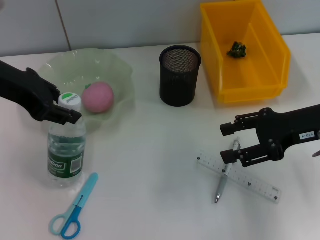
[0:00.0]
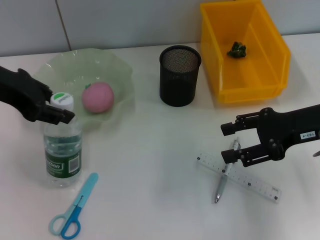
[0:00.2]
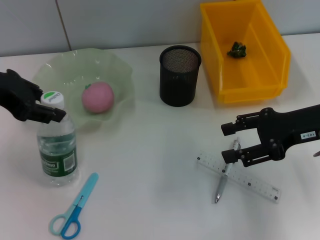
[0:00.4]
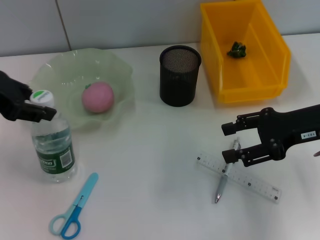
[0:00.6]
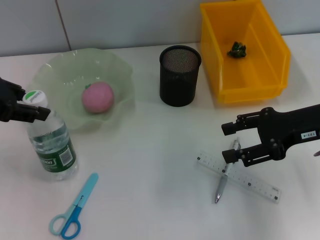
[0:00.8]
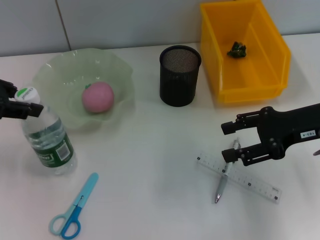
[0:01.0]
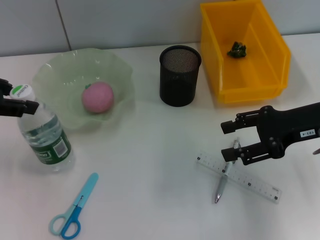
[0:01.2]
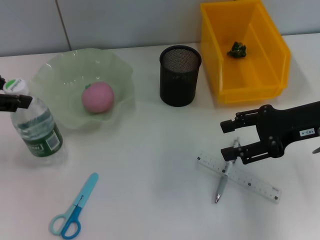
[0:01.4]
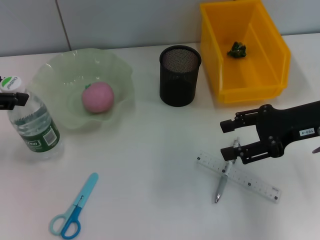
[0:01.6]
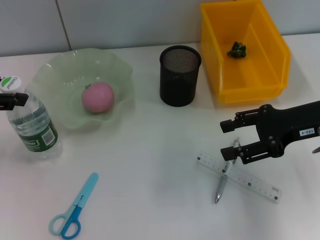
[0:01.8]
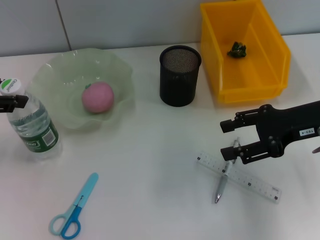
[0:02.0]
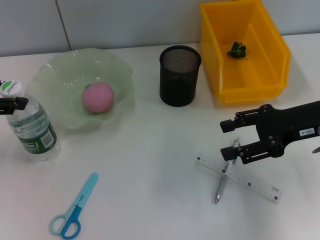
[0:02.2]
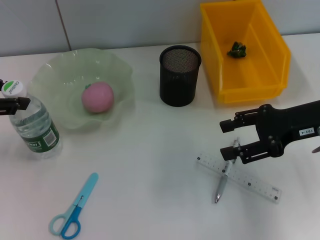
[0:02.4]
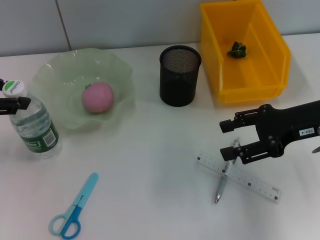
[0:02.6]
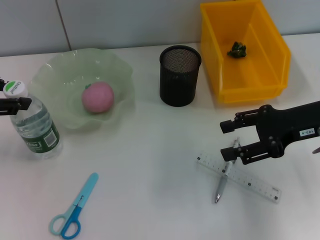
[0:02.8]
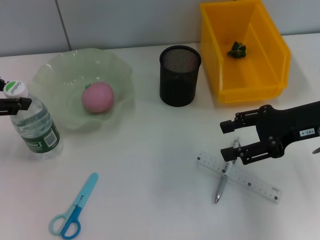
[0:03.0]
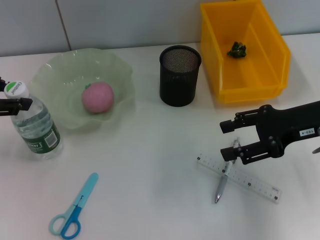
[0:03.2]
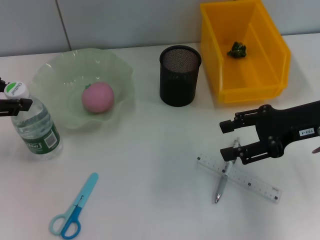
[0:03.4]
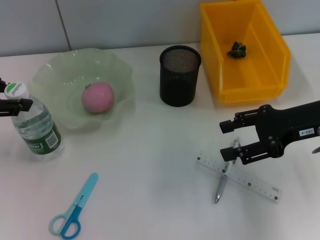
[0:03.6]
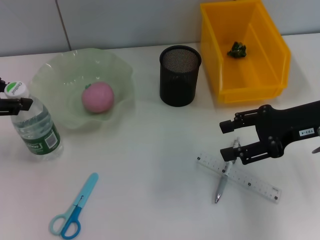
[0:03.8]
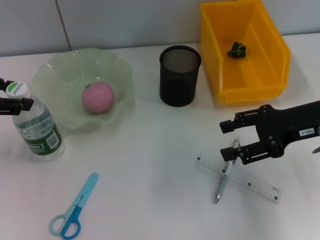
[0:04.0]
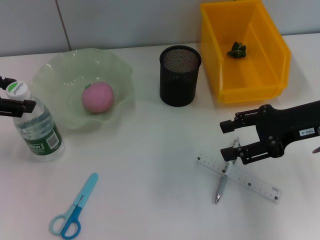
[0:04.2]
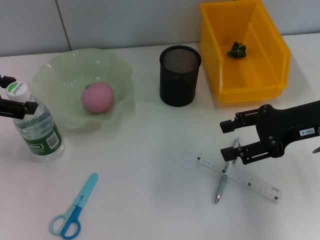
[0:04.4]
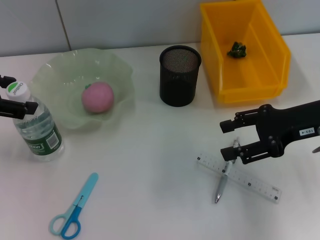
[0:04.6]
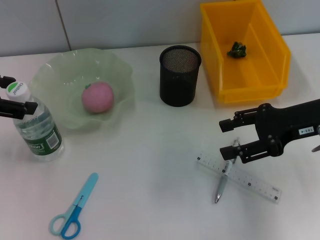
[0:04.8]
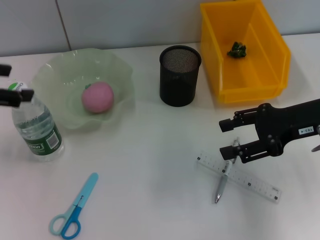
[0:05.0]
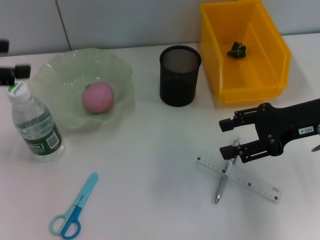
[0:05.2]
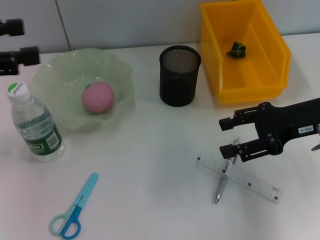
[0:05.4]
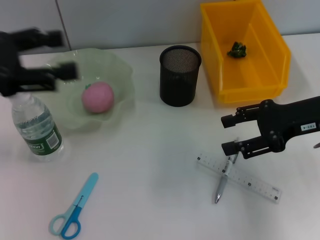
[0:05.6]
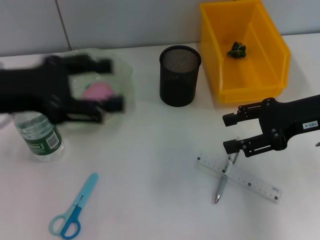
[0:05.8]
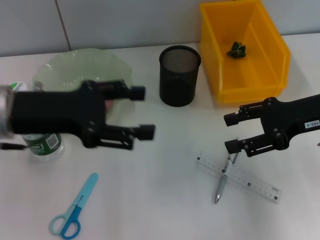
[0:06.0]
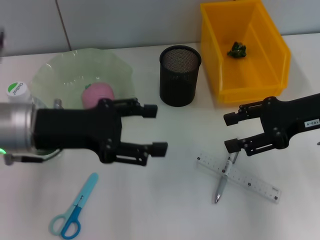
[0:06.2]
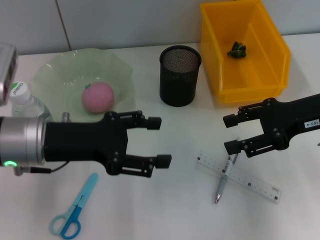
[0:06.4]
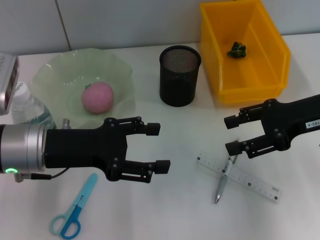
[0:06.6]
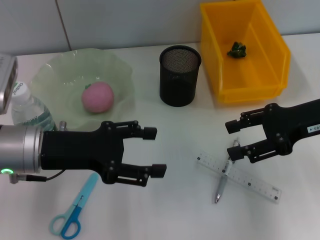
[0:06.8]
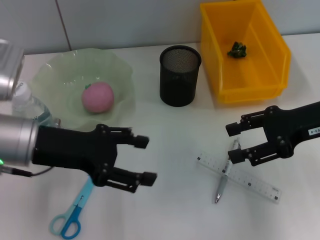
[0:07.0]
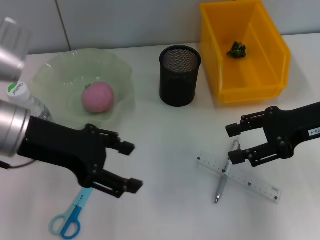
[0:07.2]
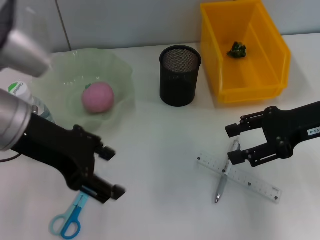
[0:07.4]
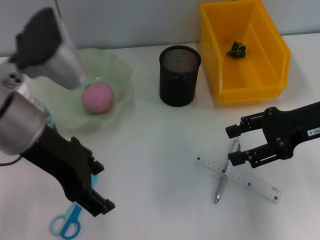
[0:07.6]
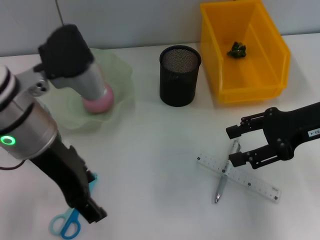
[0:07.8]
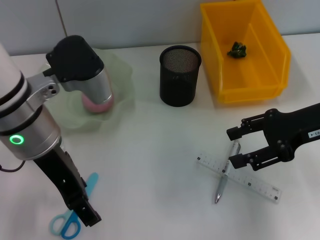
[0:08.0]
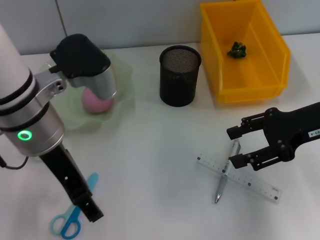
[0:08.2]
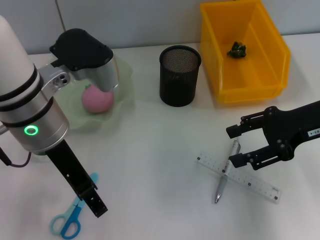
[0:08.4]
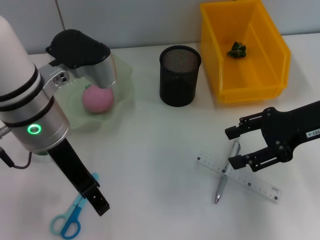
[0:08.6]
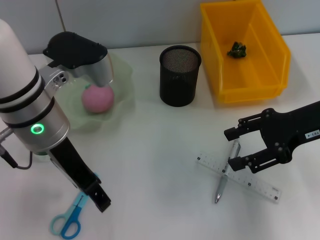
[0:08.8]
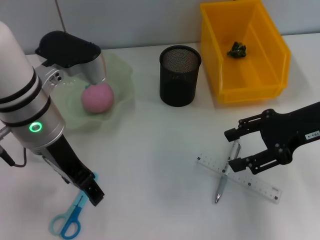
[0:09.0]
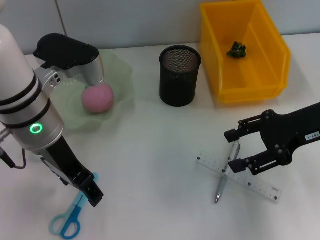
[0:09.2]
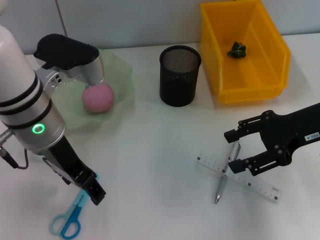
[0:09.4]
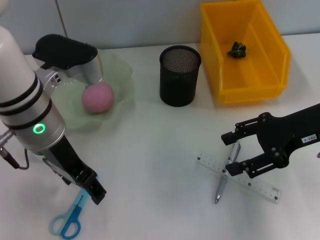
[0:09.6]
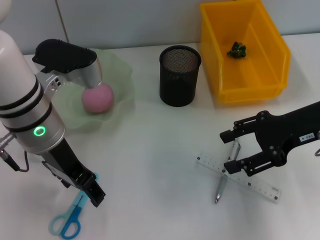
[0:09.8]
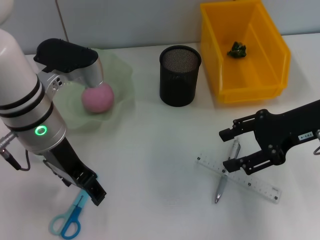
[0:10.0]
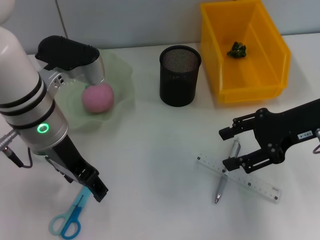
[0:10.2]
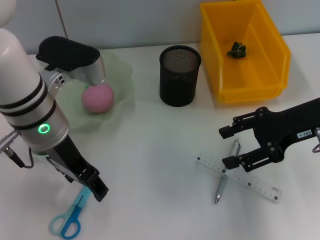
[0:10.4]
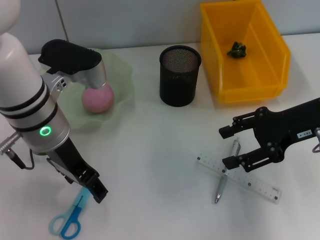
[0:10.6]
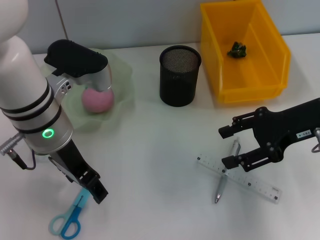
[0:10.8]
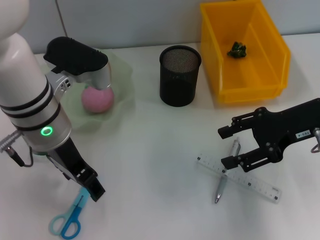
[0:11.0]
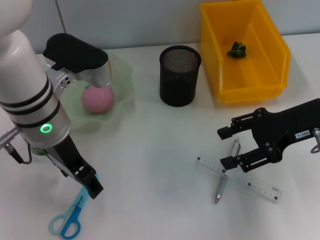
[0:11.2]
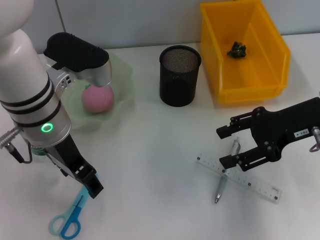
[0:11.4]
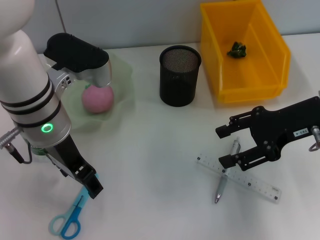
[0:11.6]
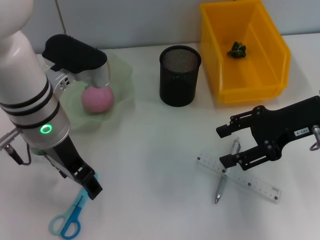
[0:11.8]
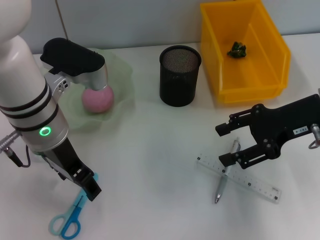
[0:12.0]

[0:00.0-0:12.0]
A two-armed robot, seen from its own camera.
Step, 0:00.0 to 0:04.4: Place the water bottle on the table with the left hand.
0:00.0 to 0:01.6: The left gripper goes about 10 cm to the left.
0:01.6 to 0:03.0: There are only small adjustments of the grippers.
0:03.0 to 0:04.4: The left gripper opens its fingers.
0:04.4 to 0:06.0: The left gripper moves to the right, roughly 10 cm.
0:06.0 to 0:07.6: The left gripper moves to the right, approximately 5 cm.
0:07.6 to 0:09.0: The left gripper moves about 5 cm.
0:09.0 to 0:12.0: There are only small adjustments of the grippers.

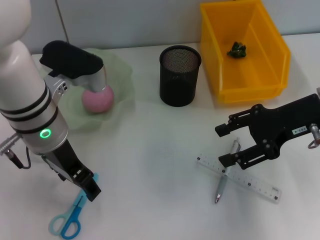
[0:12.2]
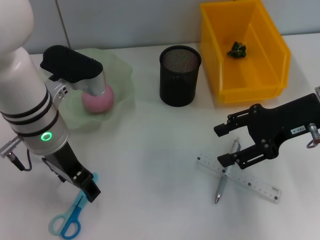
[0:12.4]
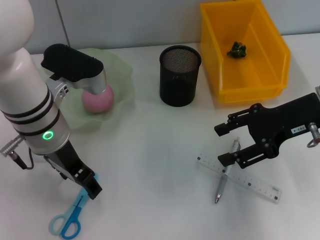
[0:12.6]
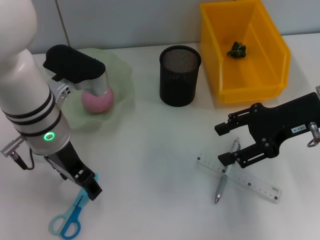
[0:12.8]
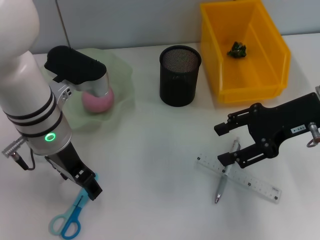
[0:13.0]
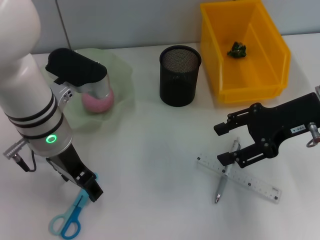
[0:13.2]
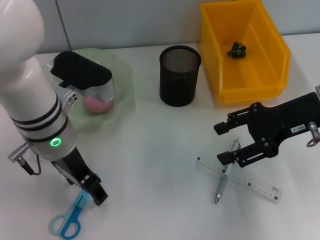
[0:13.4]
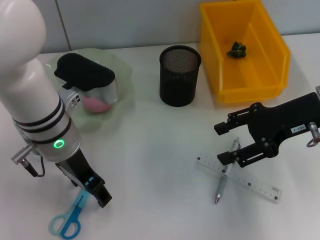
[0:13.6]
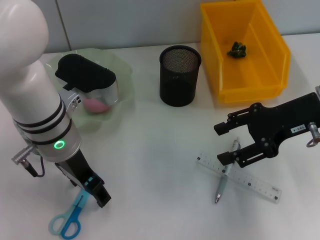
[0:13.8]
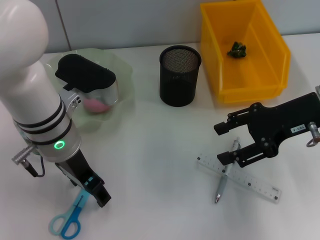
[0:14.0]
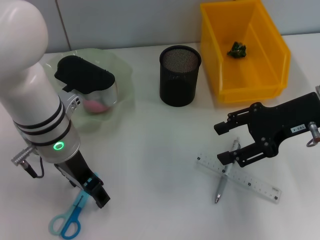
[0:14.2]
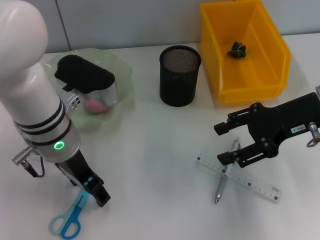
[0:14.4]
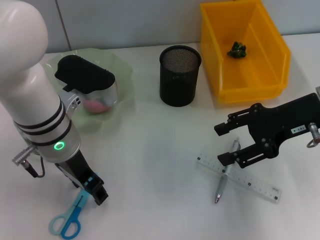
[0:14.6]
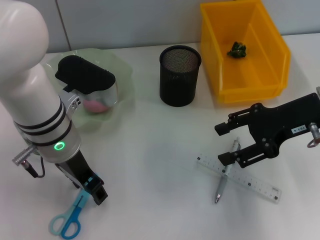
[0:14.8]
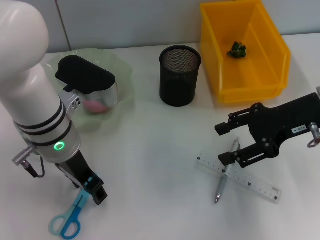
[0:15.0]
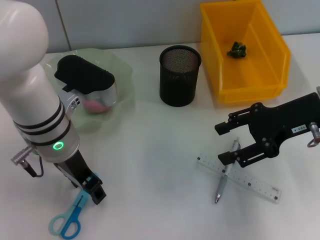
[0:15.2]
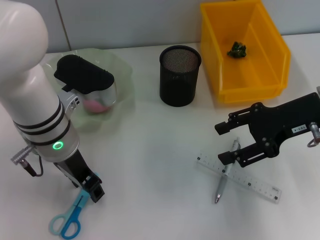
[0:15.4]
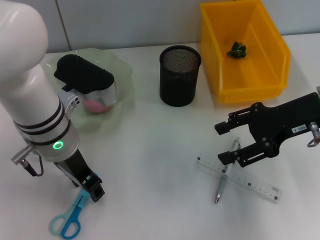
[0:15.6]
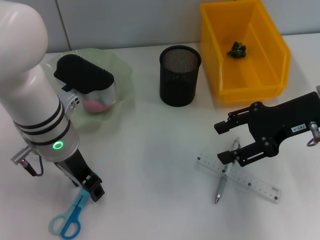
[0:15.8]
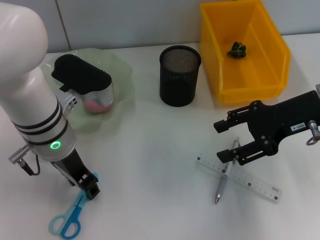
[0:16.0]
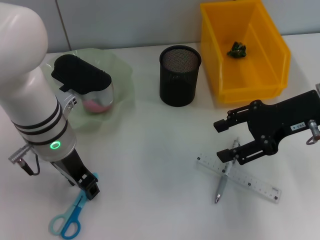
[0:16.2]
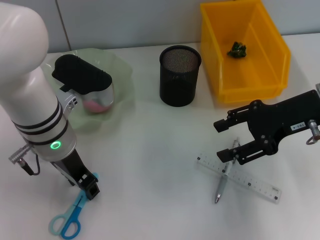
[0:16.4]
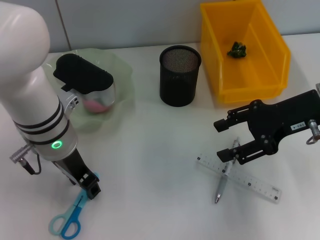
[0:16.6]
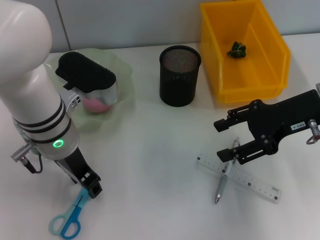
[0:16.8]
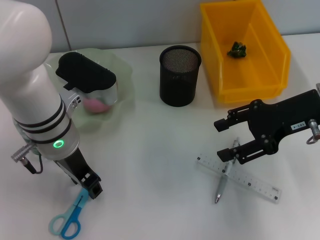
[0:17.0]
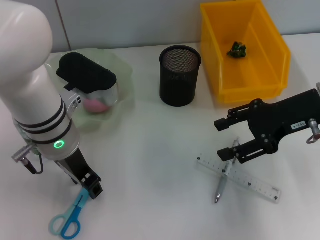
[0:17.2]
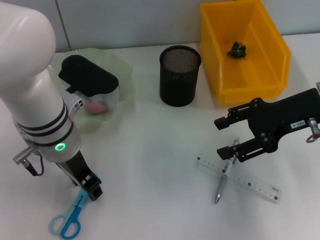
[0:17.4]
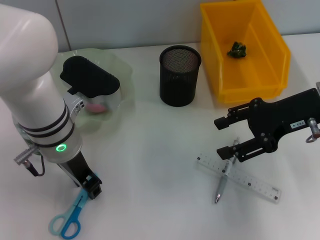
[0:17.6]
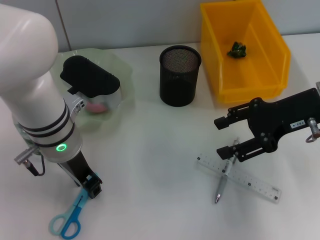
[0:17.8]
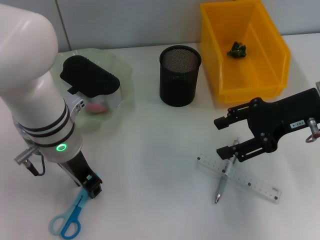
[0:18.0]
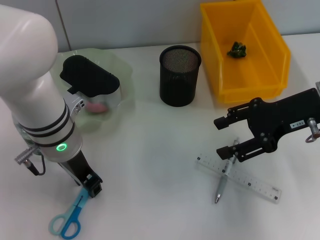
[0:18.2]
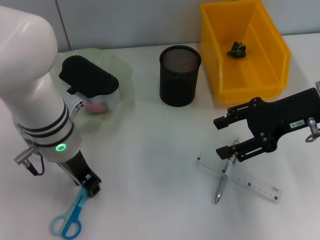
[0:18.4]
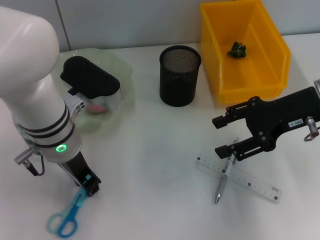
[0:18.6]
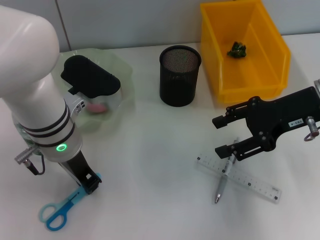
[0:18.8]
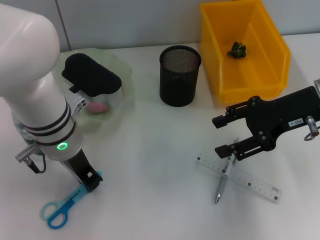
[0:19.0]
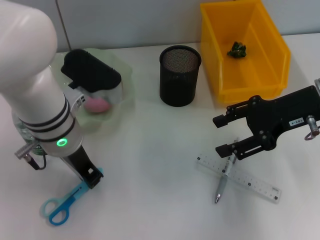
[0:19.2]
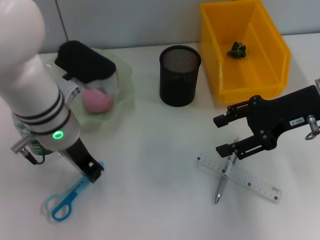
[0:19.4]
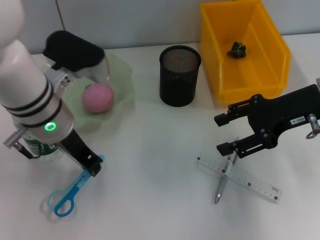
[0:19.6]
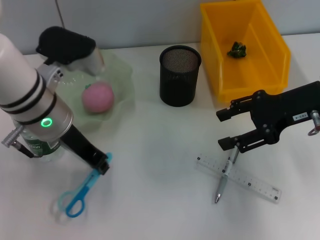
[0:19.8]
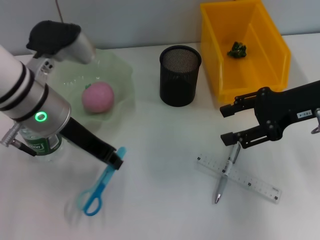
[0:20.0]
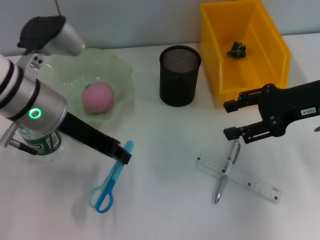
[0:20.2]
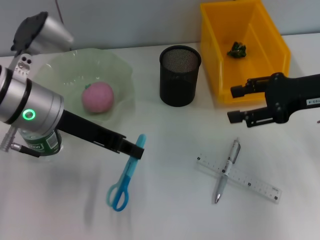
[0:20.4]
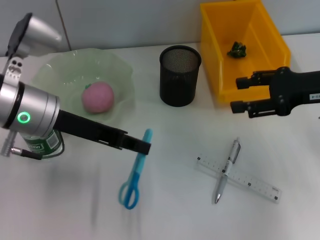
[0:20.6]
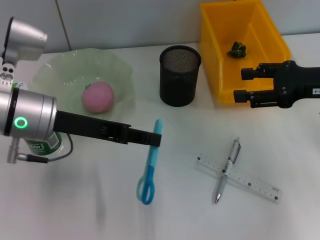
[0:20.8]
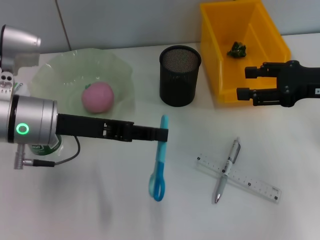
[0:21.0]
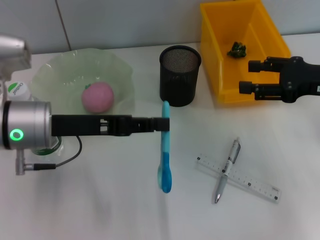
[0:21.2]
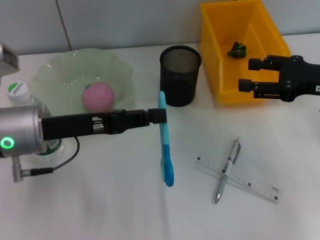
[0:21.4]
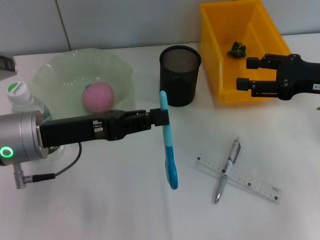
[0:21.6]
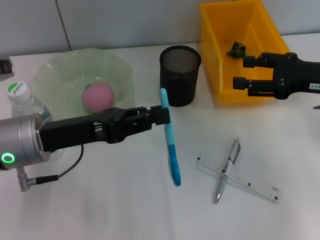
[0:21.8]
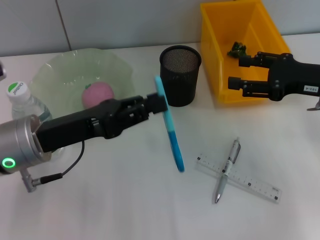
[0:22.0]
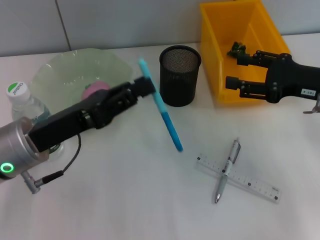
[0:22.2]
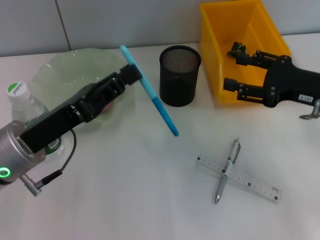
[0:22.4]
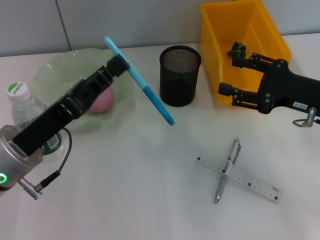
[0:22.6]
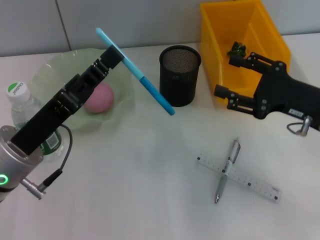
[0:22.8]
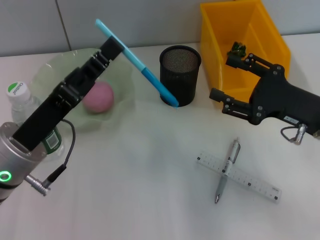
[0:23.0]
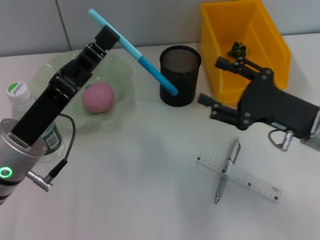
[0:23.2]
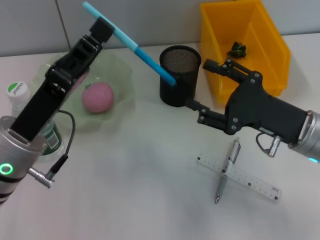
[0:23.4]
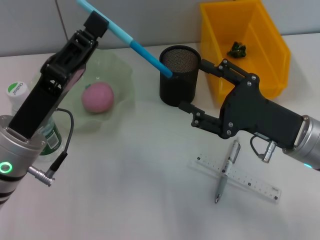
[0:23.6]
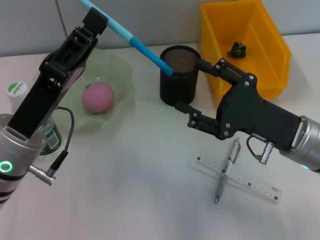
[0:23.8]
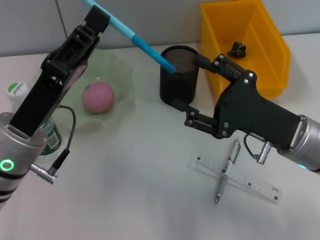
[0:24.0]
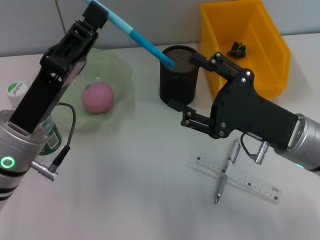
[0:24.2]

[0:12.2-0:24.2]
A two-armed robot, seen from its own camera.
Step, 0:12.2 to 0:18.6: Grab the blue scissors with the left hand.
0:12.2 to 0:13.8: The grippers stay close to where they were, moving slightly.
0:13.8 to 0:18.2: Both grippers stay put.
0:18.2 to 0:19.8: The grippers move only a little.
0:19.8 to 0:21.2: The right gripper ends up about 5 cm from where it was, while the left gripper shifts by approximately 5 cm.
0:21.2 to 0:22.6: The right gripper shifts by approximately 5 cm, while the left gripper shifts some 5 cm backward.
0:22.6 to 0:24.2: The right gripper moves to the left, approximately 10 cm.
